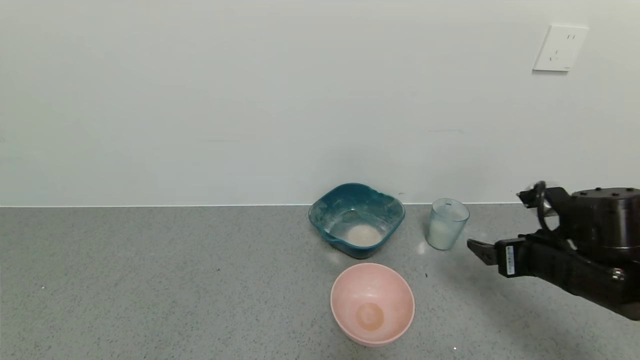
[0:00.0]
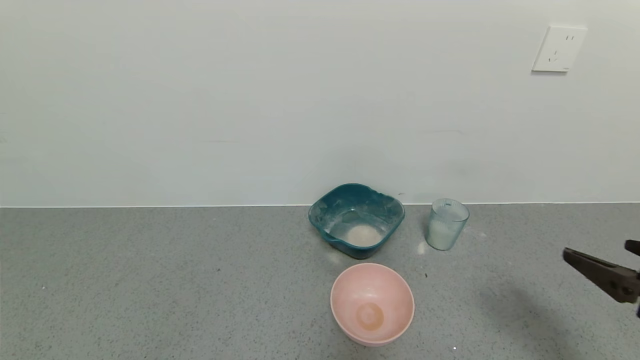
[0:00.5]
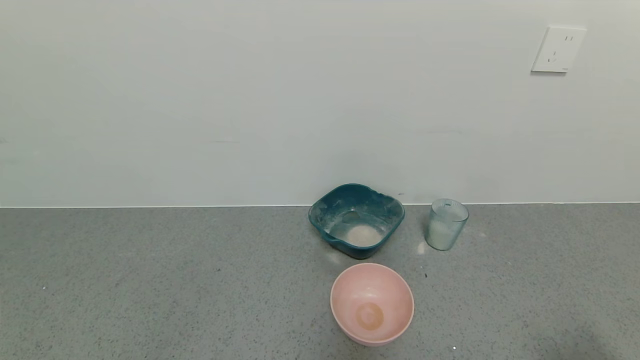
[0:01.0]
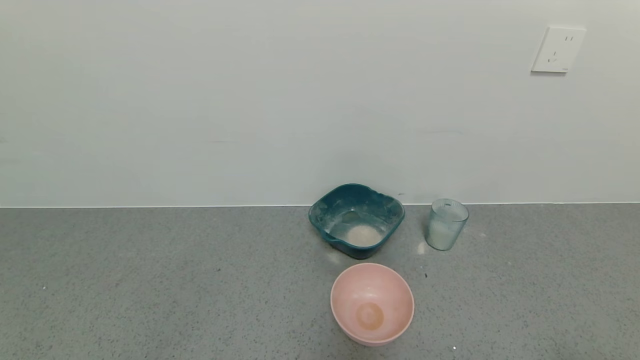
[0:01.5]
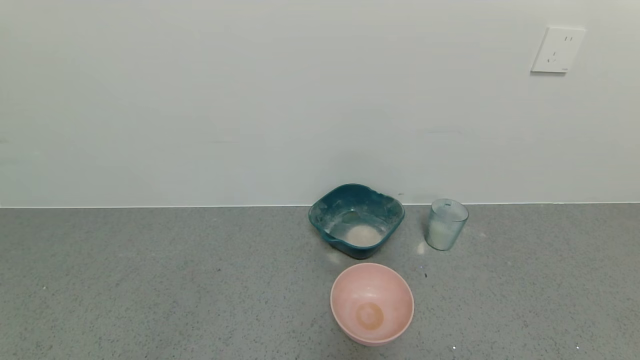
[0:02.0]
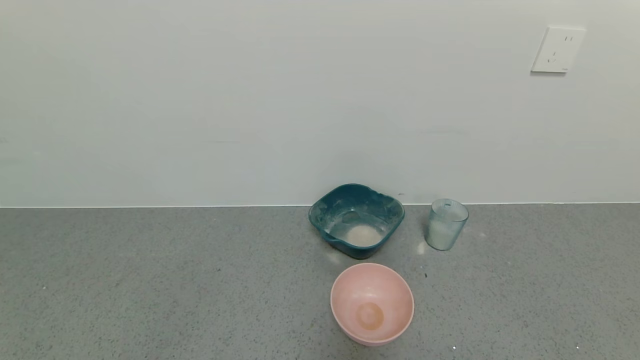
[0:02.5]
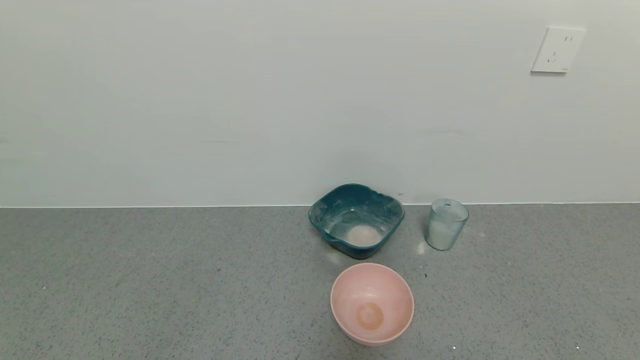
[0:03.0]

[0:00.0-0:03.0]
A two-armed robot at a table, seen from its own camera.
Task of the whole recording: use a gripper to pick up the cup and pour the powder into a bowl or tray.
0:00.0 to 0:01.5: The right gripper shifts roughly 30 cm backward.
